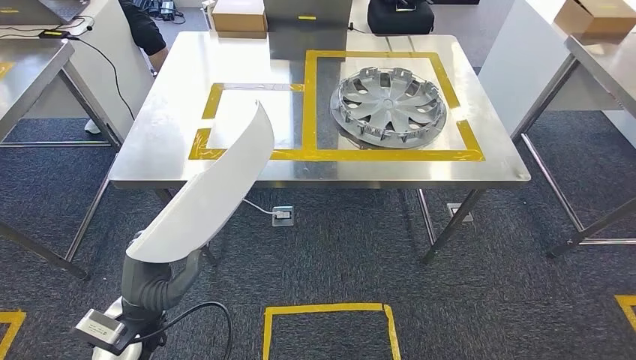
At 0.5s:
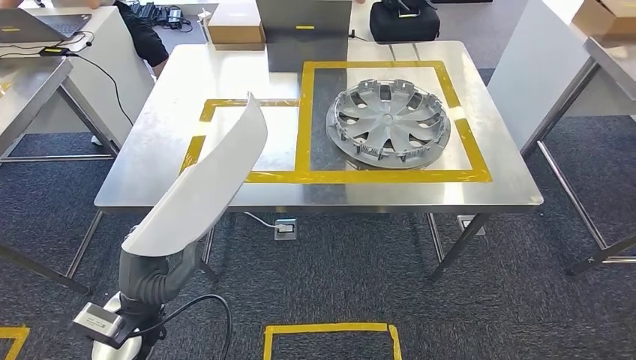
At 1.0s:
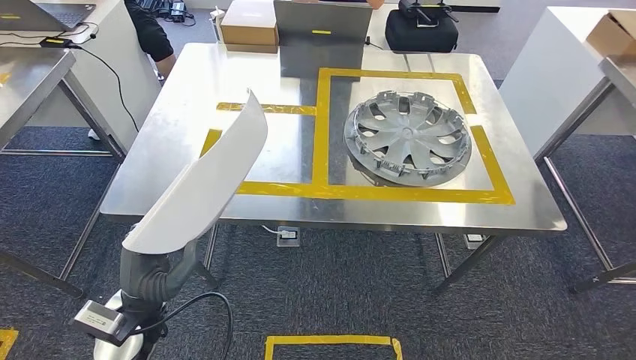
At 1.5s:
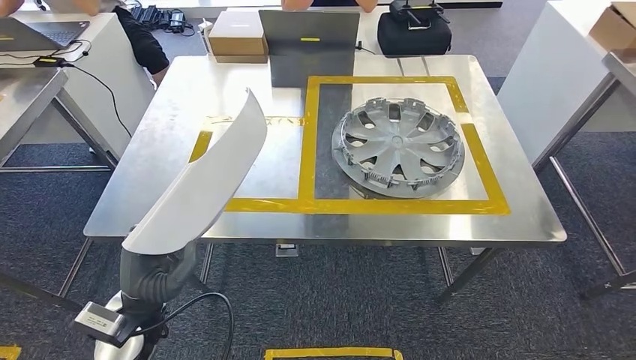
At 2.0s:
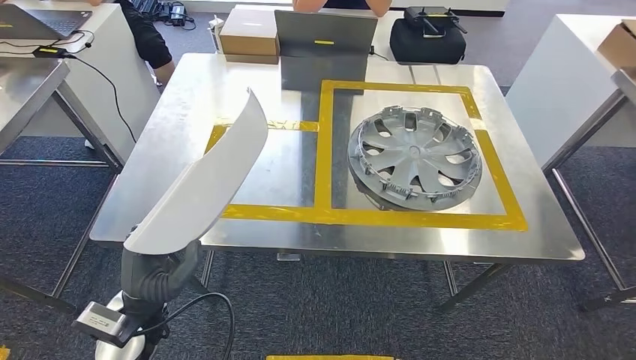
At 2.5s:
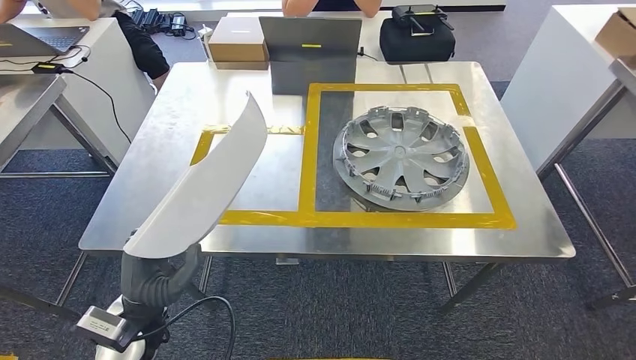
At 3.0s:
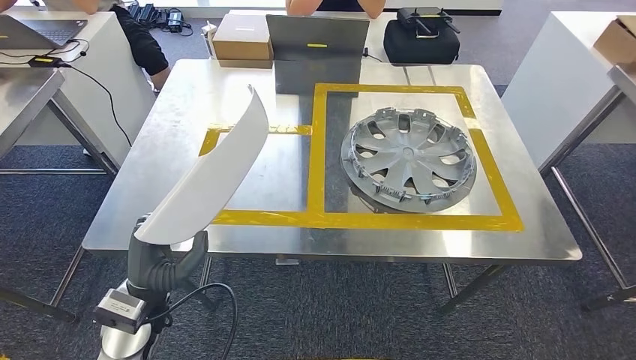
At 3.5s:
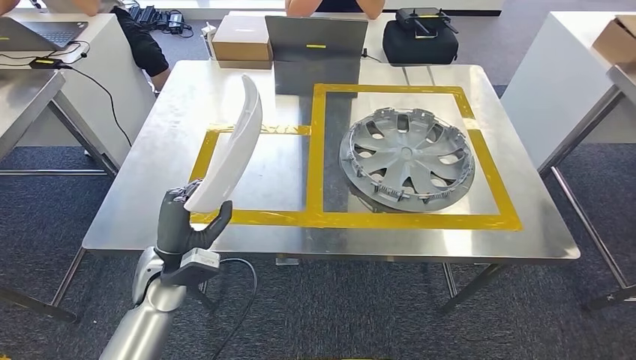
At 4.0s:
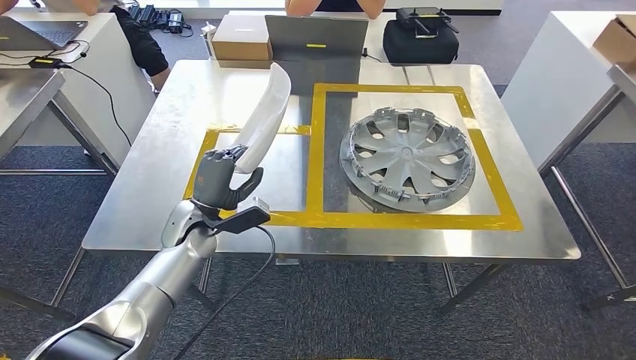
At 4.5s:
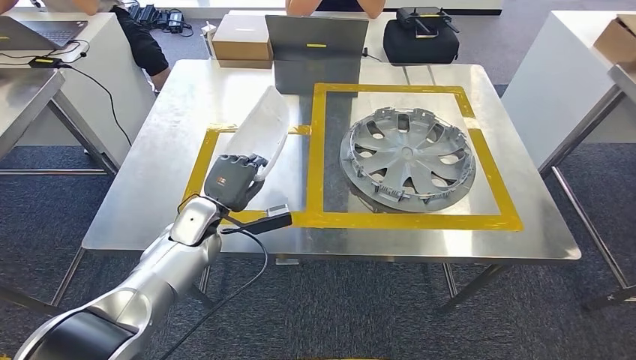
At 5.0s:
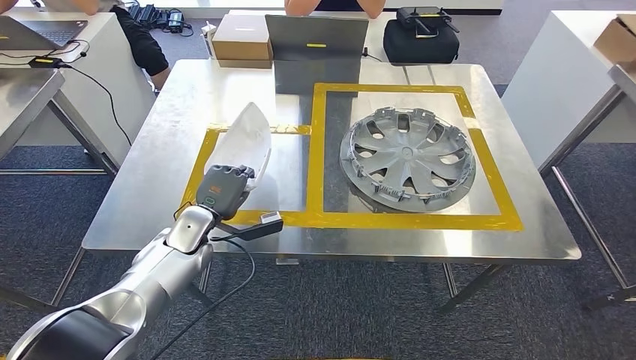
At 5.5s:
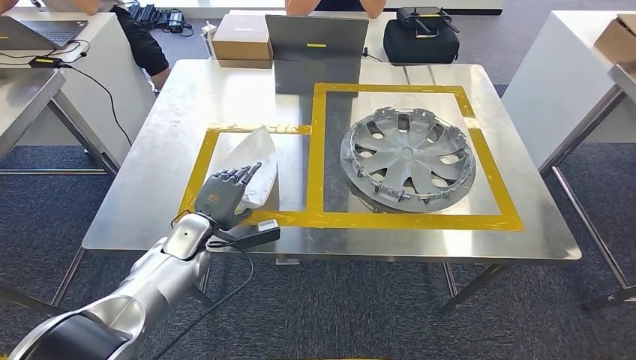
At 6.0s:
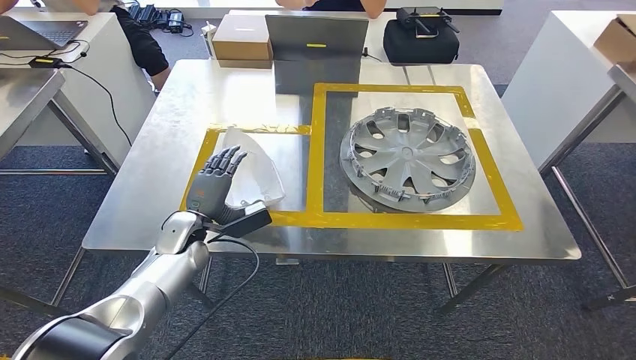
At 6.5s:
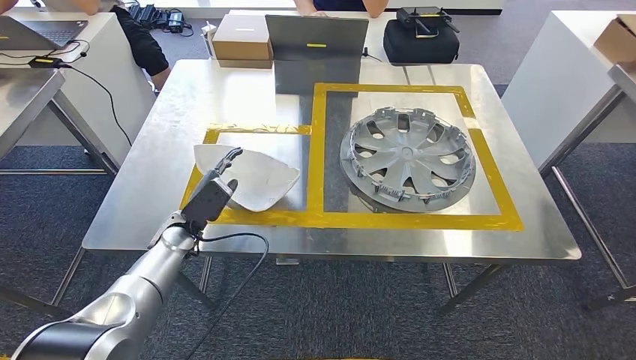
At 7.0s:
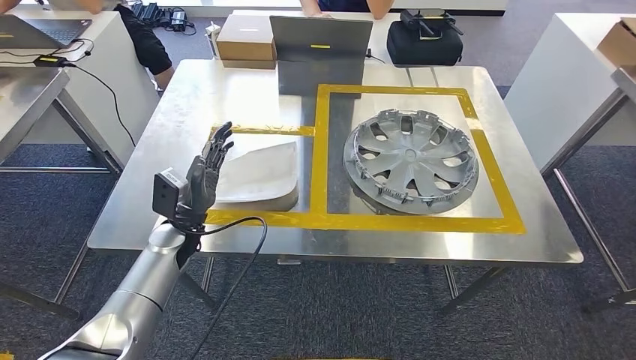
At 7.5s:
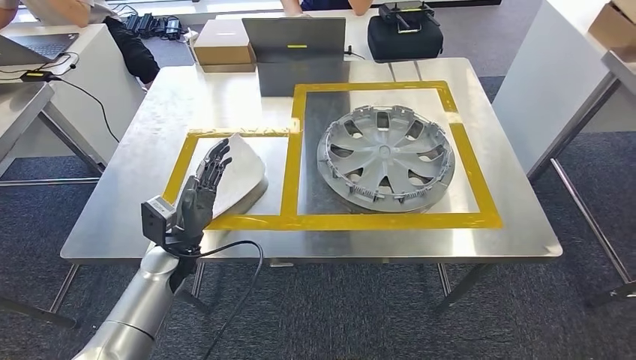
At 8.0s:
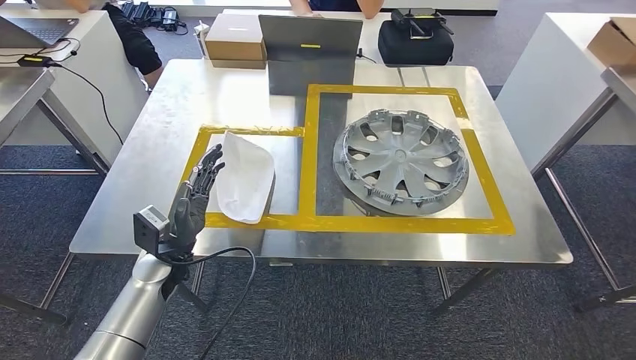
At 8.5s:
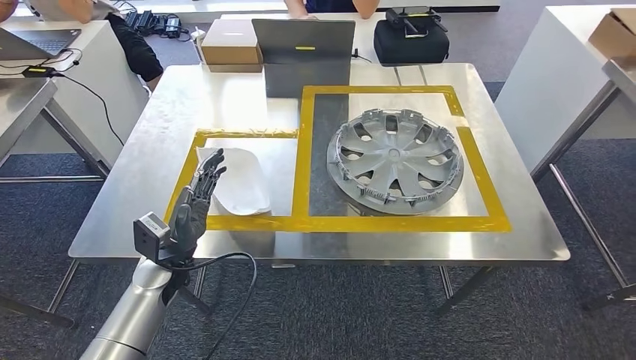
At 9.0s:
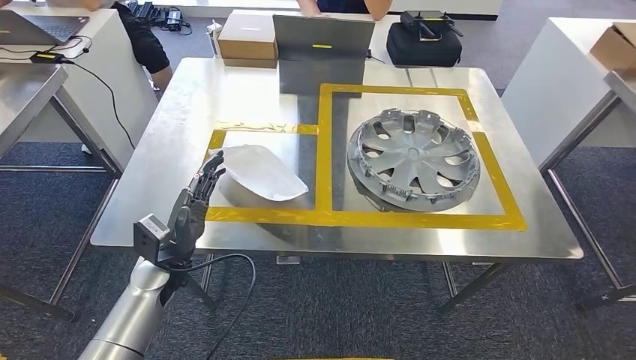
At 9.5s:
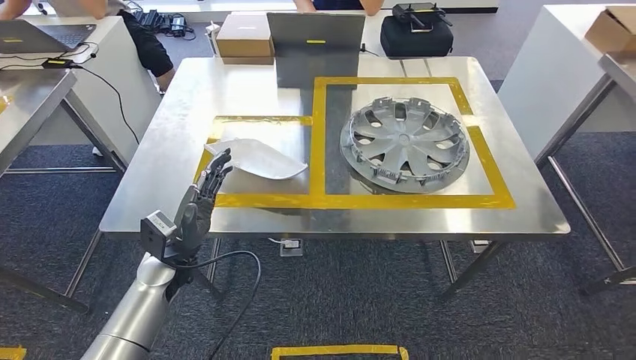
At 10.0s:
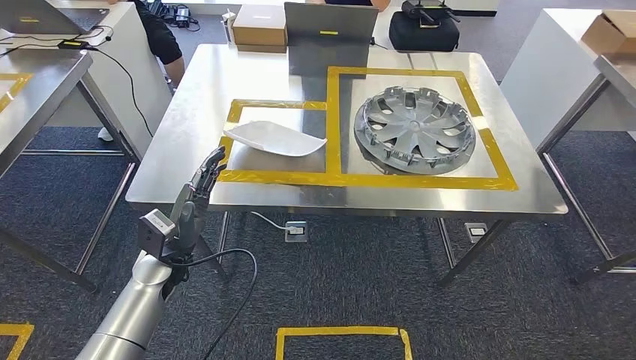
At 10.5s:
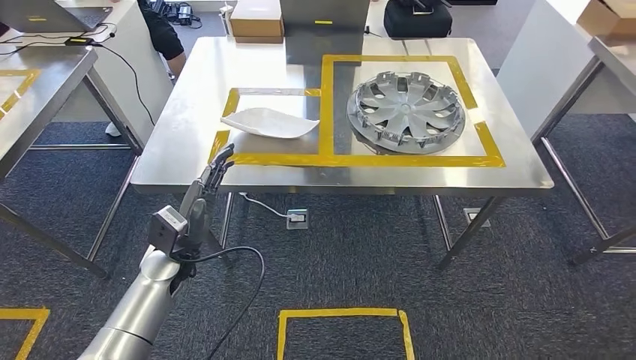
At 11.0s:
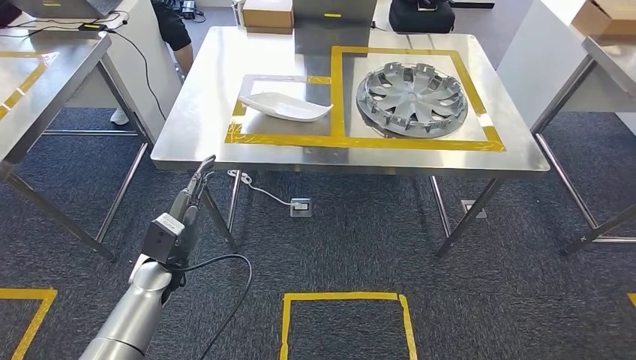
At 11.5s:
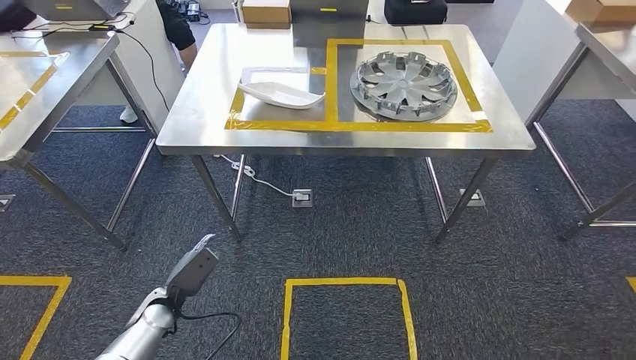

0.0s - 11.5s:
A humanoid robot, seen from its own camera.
Step, 0.0s - 6.5s: Insert the small component into the corresponding slot on the workbench.
Step, 7.0s - 11.5s: Move to the initial position of the workbench.
